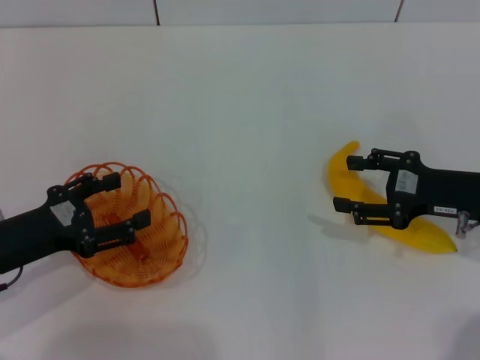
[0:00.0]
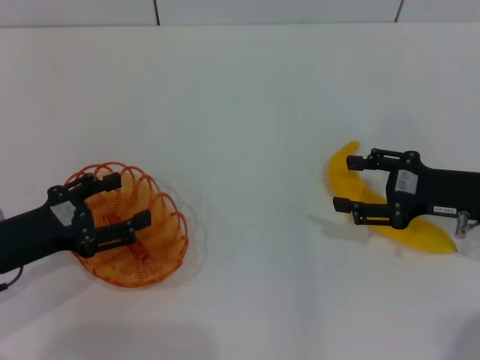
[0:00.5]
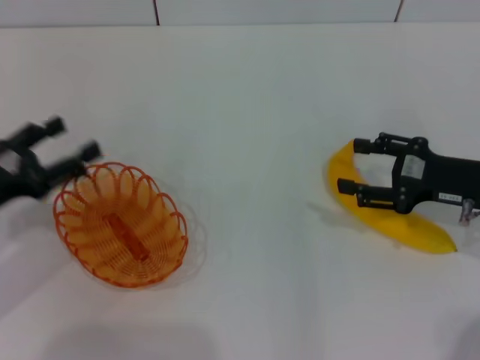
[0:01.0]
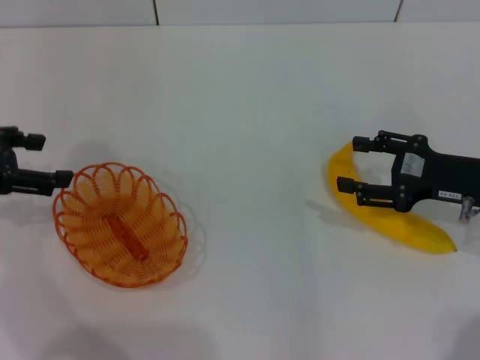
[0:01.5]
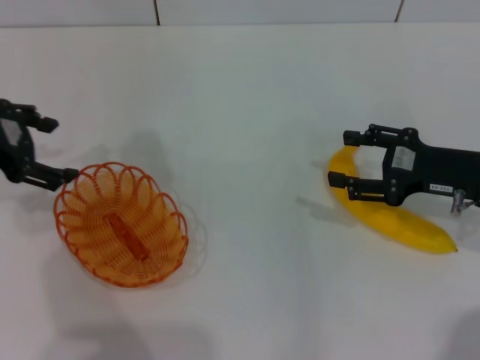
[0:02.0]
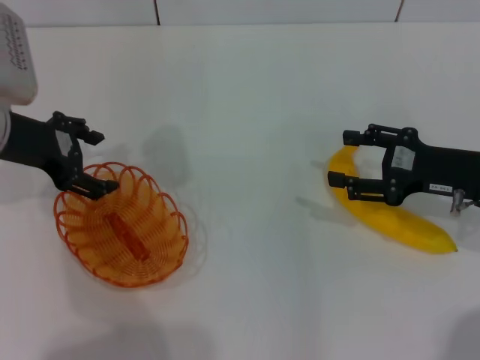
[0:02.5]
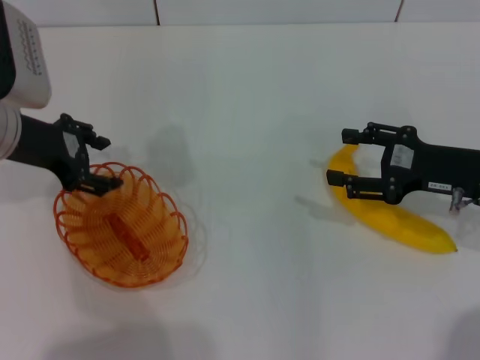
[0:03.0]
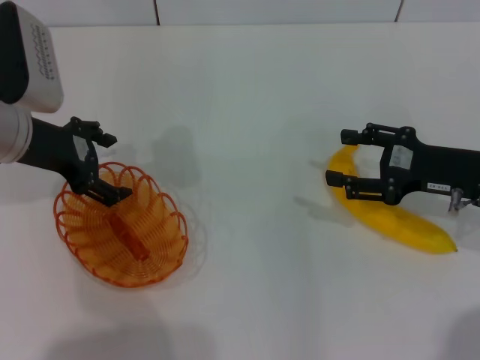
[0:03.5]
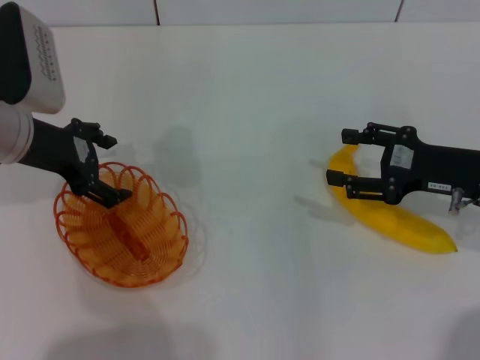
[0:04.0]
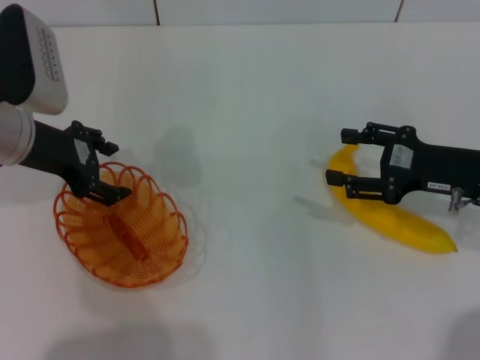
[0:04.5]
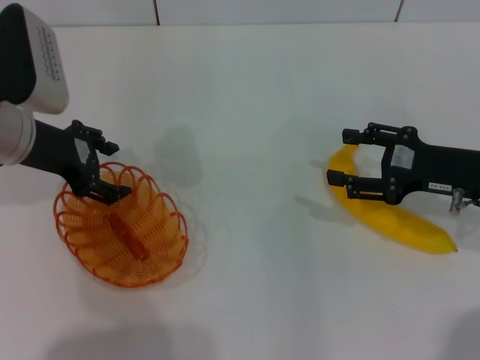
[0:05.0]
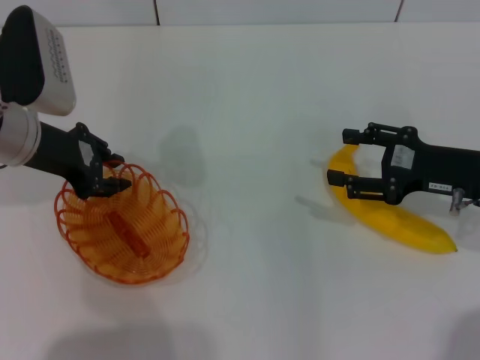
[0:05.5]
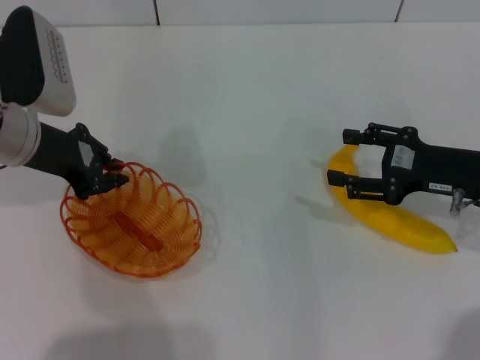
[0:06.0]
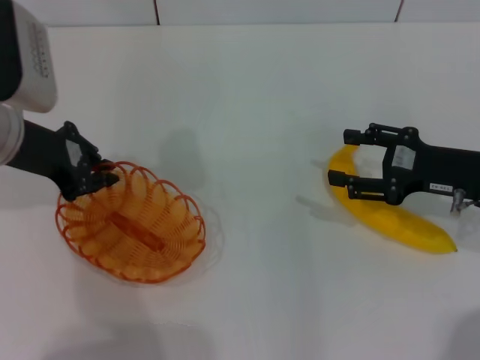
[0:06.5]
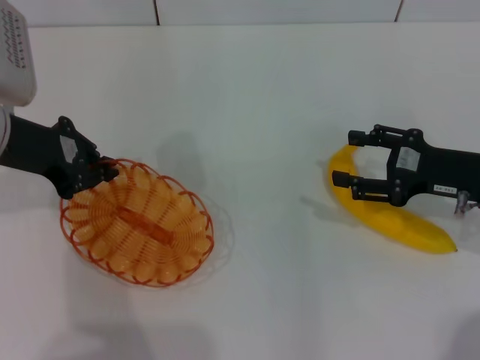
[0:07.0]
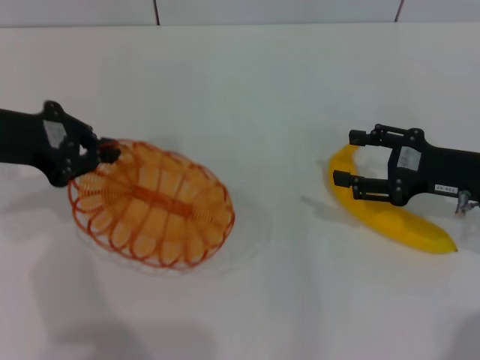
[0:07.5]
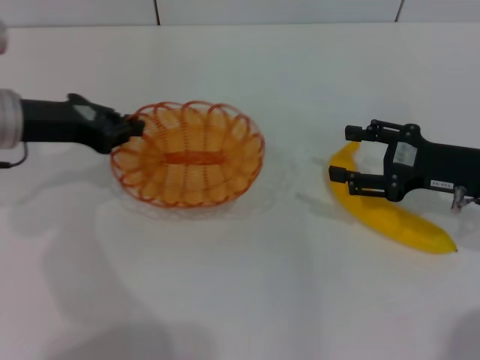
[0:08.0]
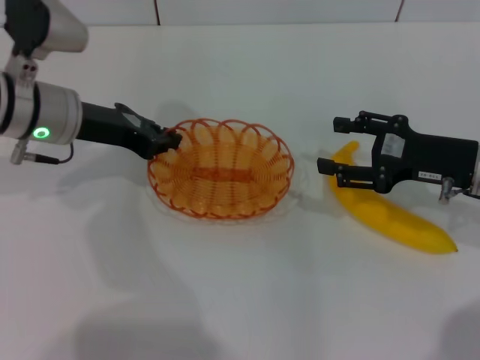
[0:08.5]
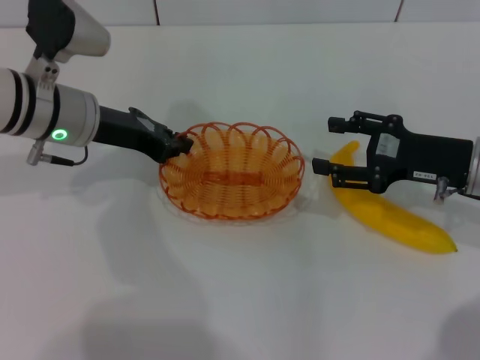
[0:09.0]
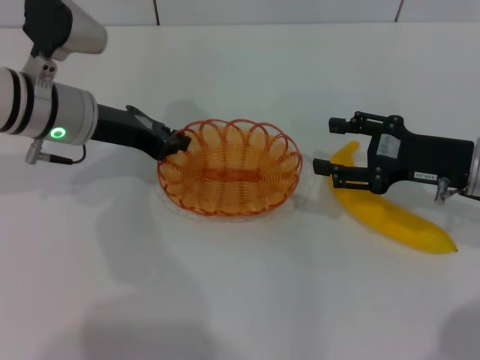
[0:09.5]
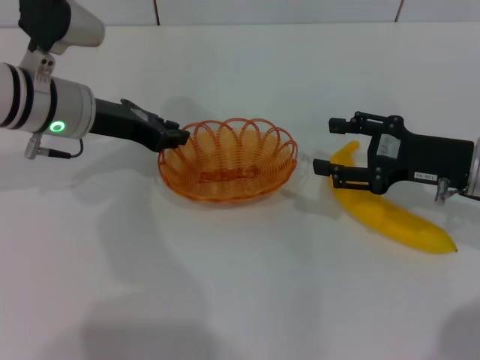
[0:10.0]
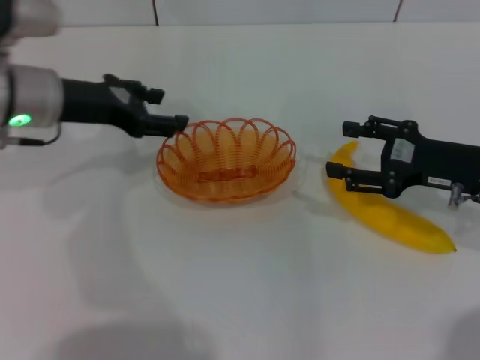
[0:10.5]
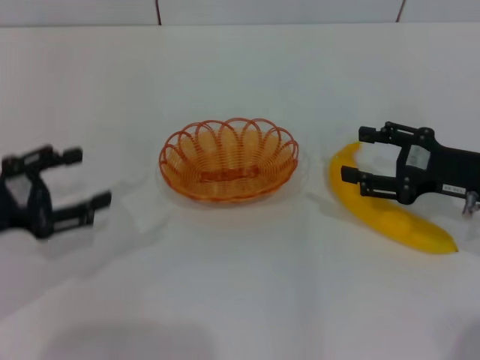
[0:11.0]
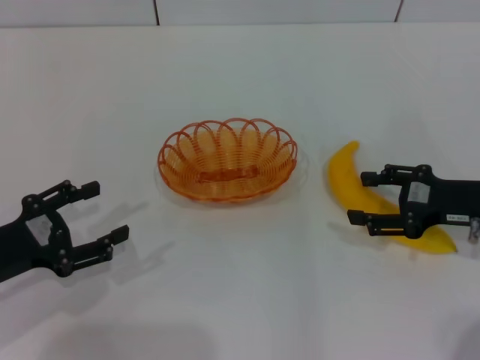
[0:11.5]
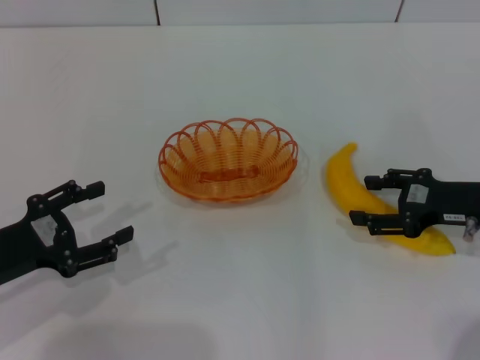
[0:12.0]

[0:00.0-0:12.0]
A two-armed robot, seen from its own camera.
Step, 0:00.0 to 0:07.5: Pick up the basket with the left gripper.
Step, 0:08.0 to 0:10.5: Place the basket in the center of view with the left gripper.
0:00.0 to 0:02.0: The left gripper shifts approximately 15 cm upward and forward.
0:02.0 to 0:04.0: The left gripper is displaced to the right by some 5 cm.
0:04.0 to 0:06.0: The left gripper closes its fingers.
0:08.0 to 0:10.0: The left gripper goes about 5 cm to the right.
0:10.0 to 0:12.0: The left gripper is displaced backward, to the left and downward by approximately 20 cm, and opens.

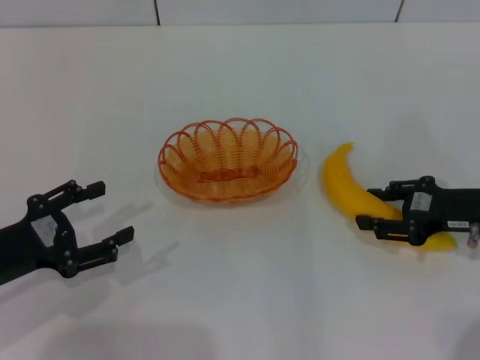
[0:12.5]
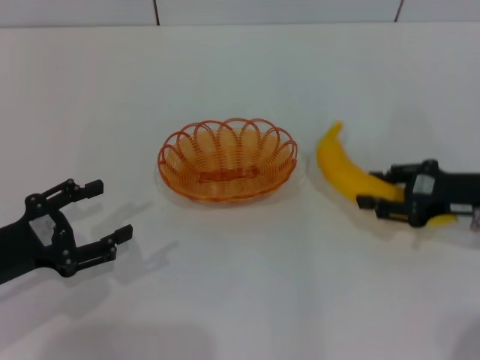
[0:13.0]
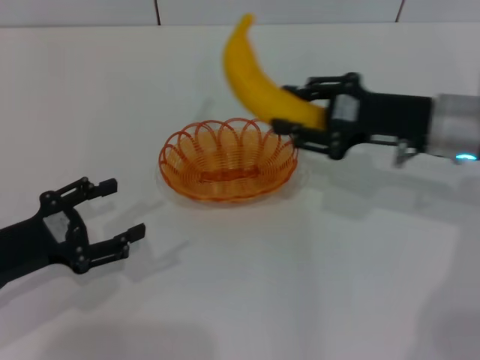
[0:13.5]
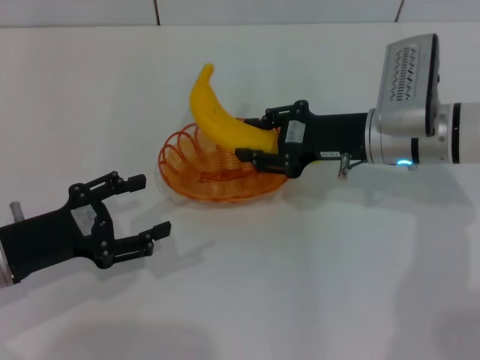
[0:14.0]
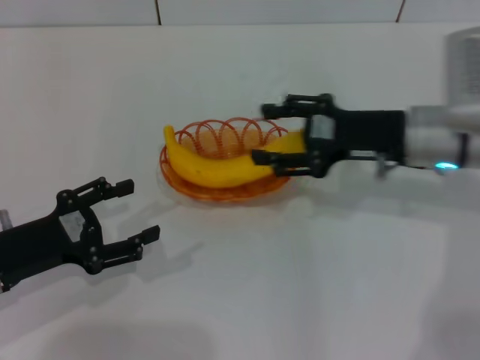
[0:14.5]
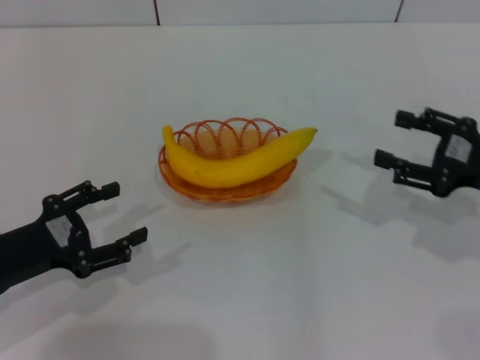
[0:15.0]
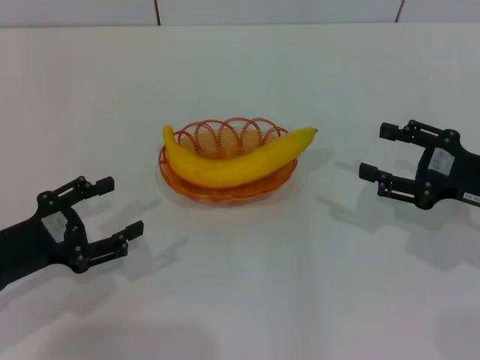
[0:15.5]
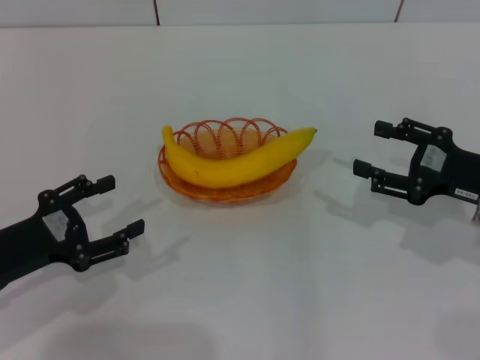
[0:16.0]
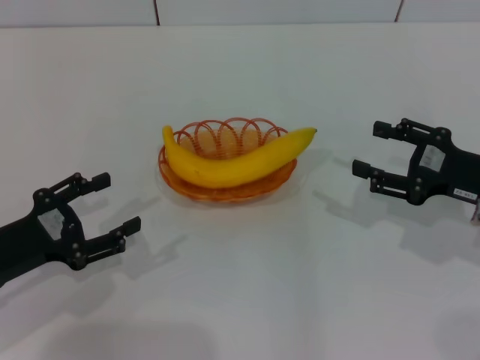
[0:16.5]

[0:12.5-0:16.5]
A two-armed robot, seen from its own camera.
Step, 0:14.0 to 0:15.0: Place the banana into the basket with the right gripper.
0:12.5 to 0:14.5: The right gripper shifts approximately 10 cm to the left, forward and upward, and closes, then reopens.
0:14.5 to 0:16.5: The right gripper travels to the right and backward by about 10 cm.
